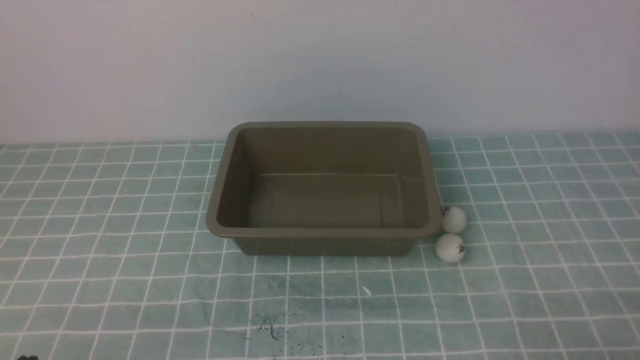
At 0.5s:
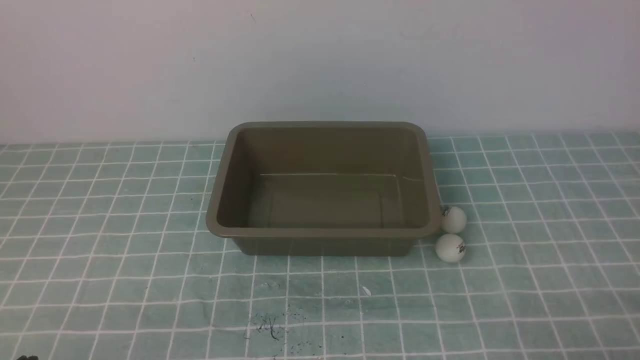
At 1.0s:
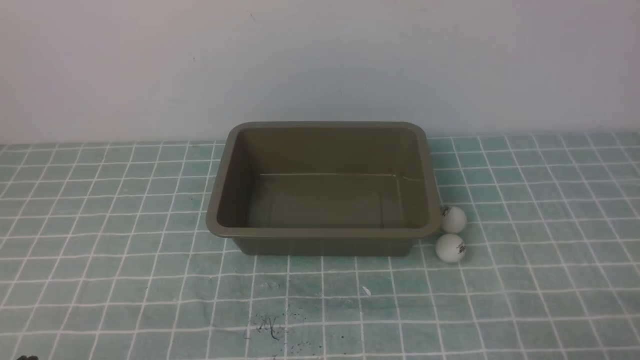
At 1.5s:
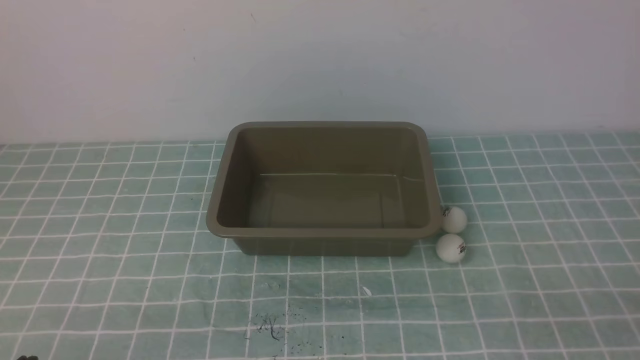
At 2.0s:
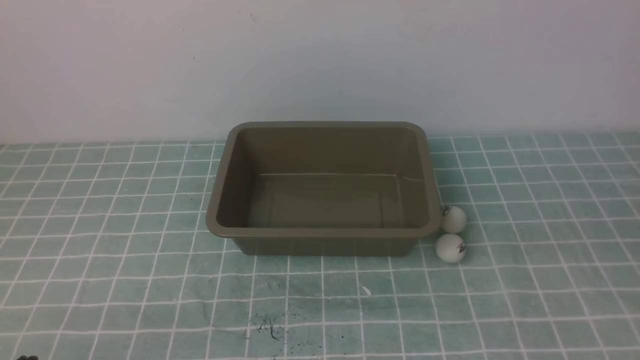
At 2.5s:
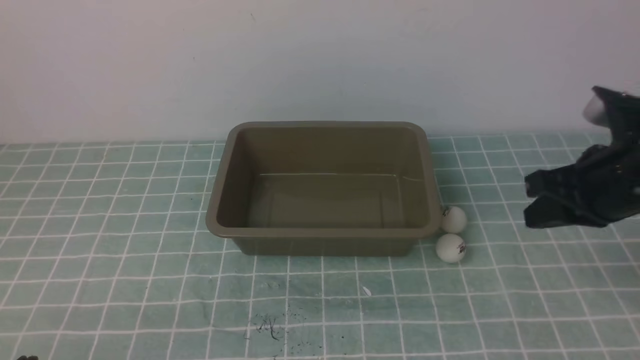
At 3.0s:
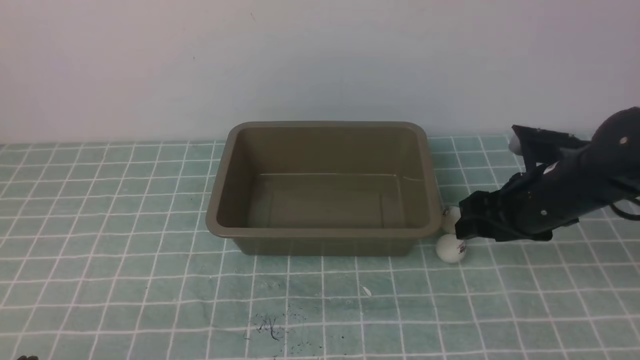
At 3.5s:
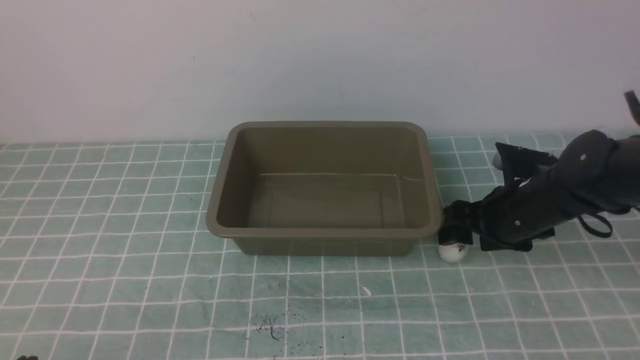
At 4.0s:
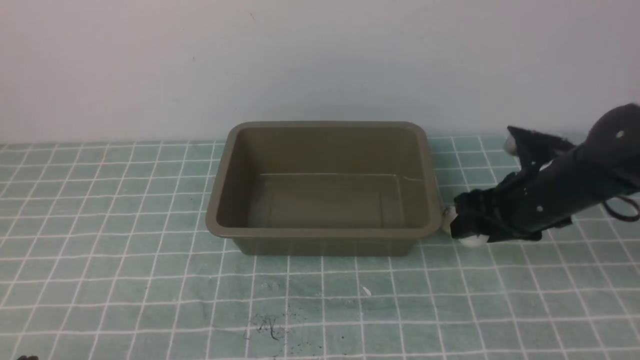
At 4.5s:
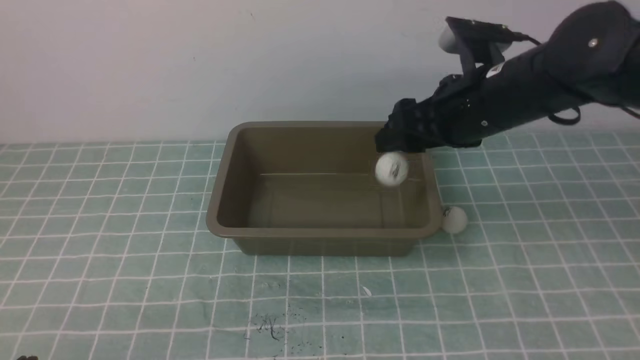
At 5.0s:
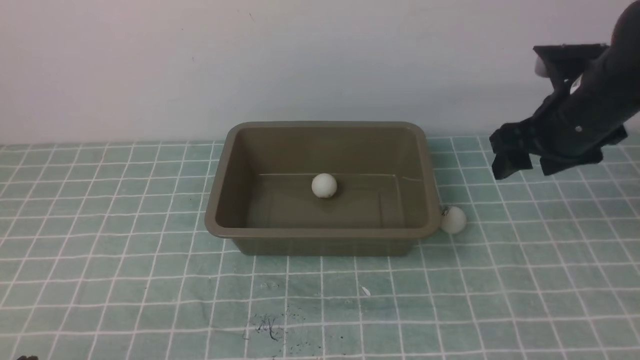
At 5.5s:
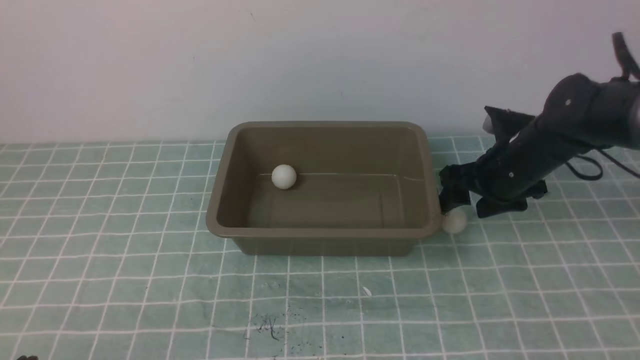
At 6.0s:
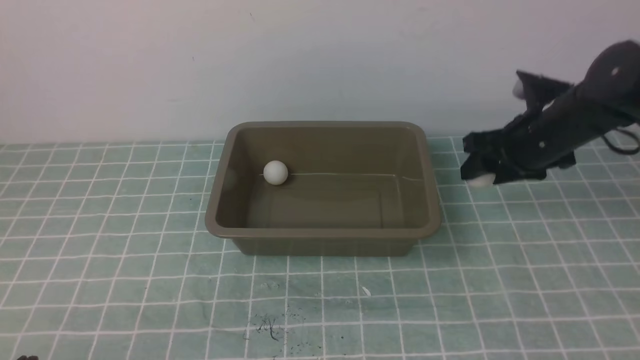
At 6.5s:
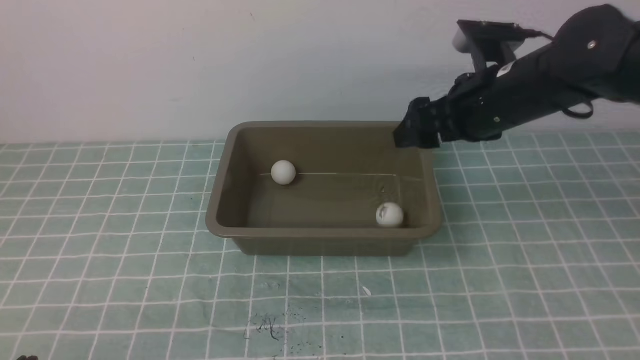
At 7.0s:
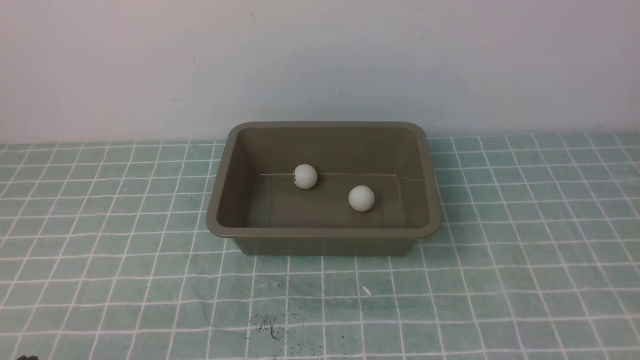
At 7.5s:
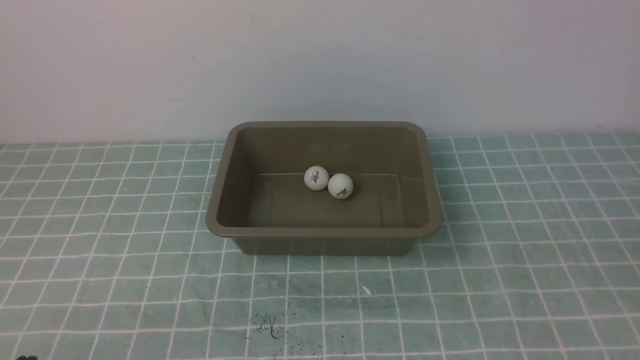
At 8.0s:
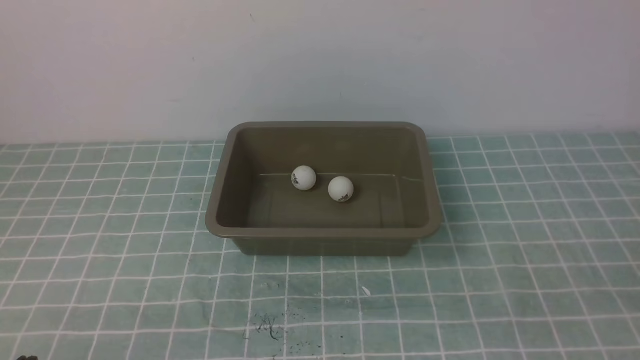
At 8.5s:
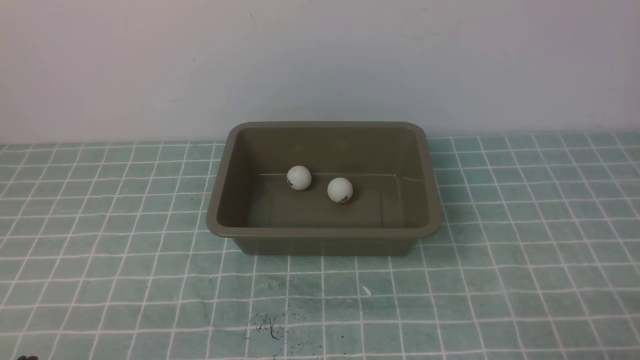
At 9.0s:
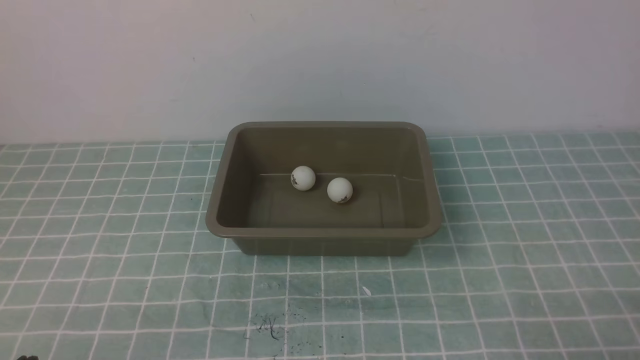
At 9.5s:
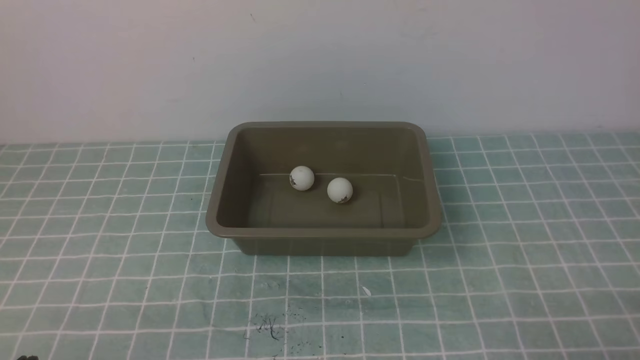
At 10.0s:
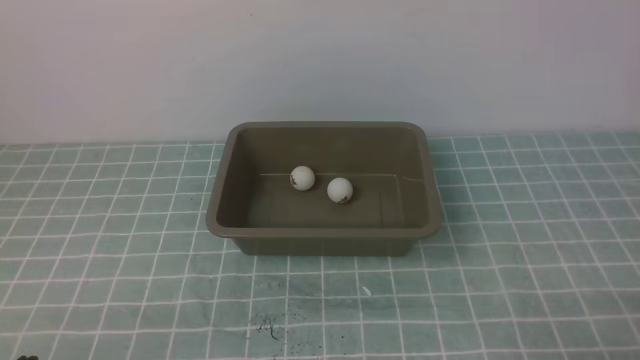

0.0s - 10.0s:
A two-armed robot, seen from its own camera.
Step, 0.0s - 4.0s: use the right arm to clamp the table tennis ball closest to it.
Step, 5.0s - 5.5s: use the right arm to clamp the table tennis ball closest to it.
Step, 6.0s - 6.5s: use the right arm to put the table tennis ball into the box.
2.0s - 4.0s: The right gripper is displaced forward and downward by approximately 20 cm, and opens its fingers.
4.0s - 6.0s: The right gripper goes up and down, roughly 10 cm each way, reversing 2 times.
6.0s - 8.0s: The right gripper heads backward, covering about 35 cm, and closes up.

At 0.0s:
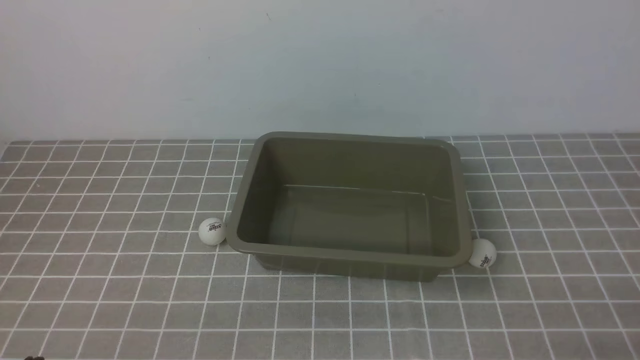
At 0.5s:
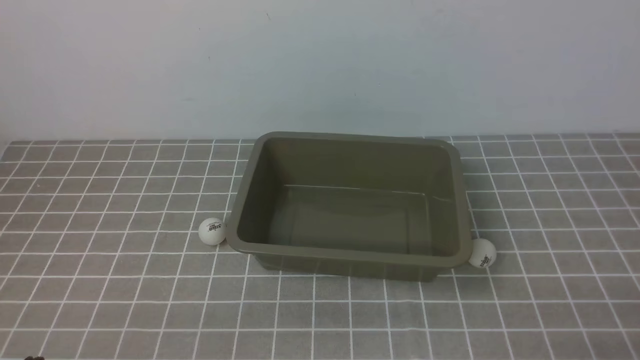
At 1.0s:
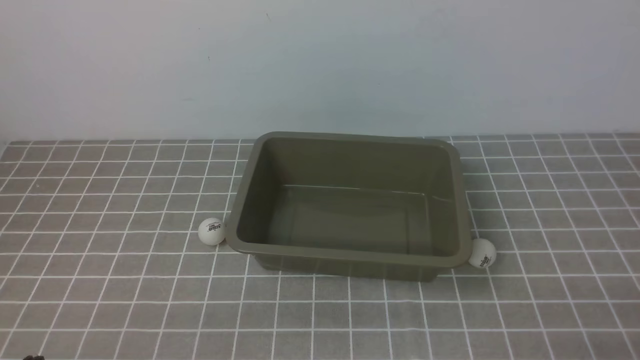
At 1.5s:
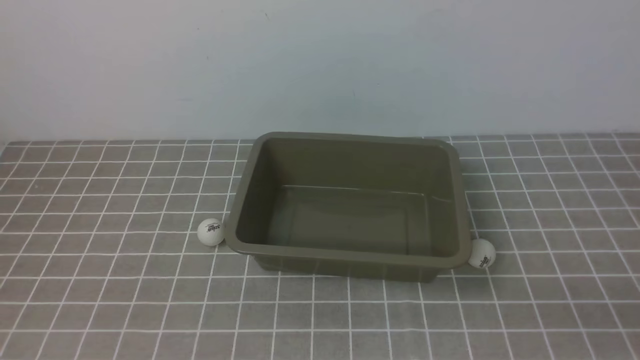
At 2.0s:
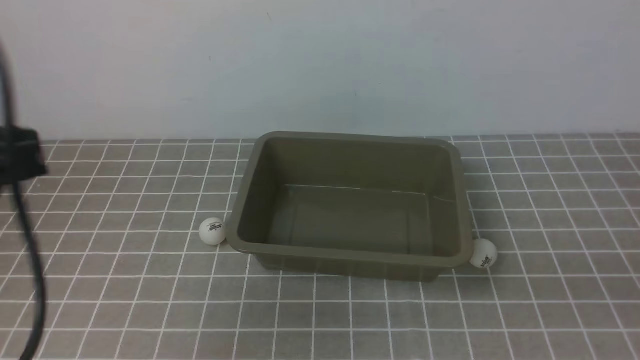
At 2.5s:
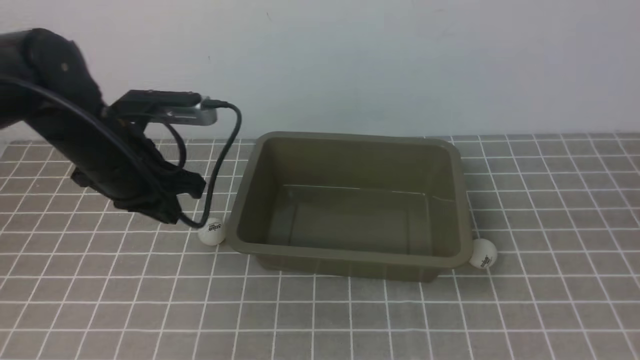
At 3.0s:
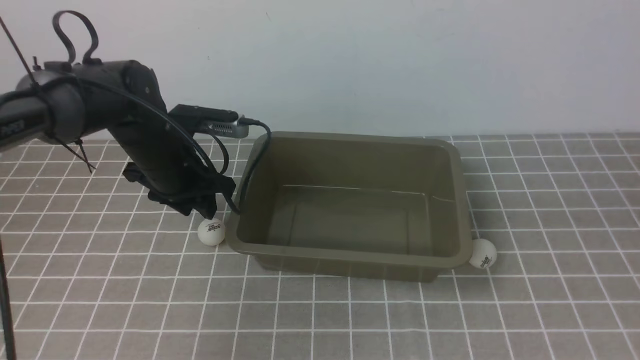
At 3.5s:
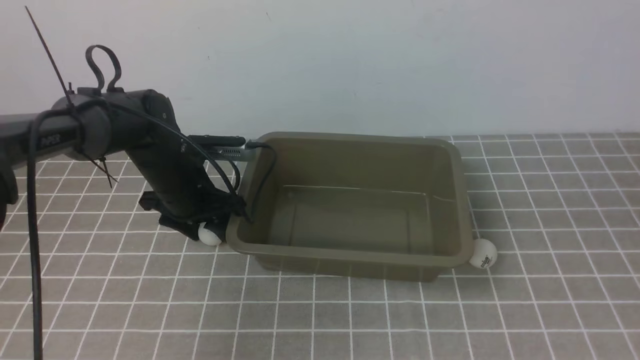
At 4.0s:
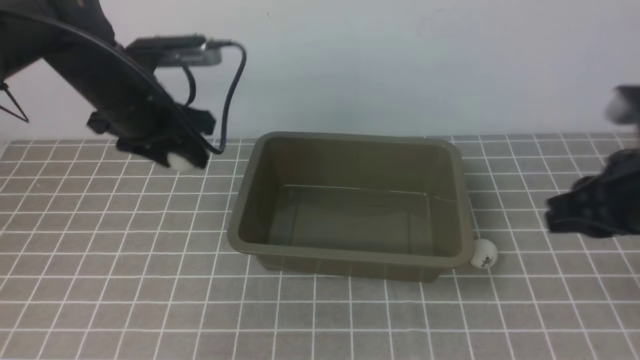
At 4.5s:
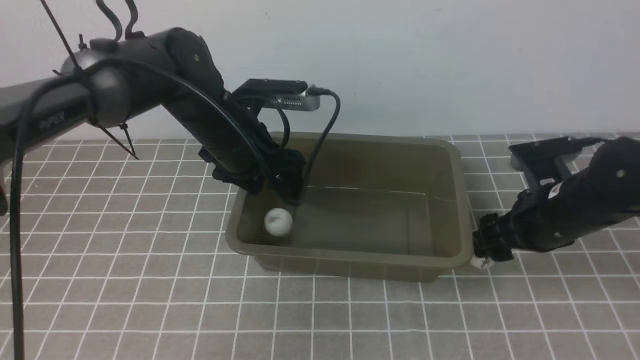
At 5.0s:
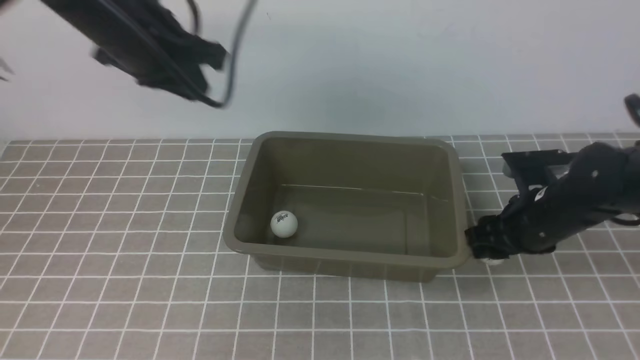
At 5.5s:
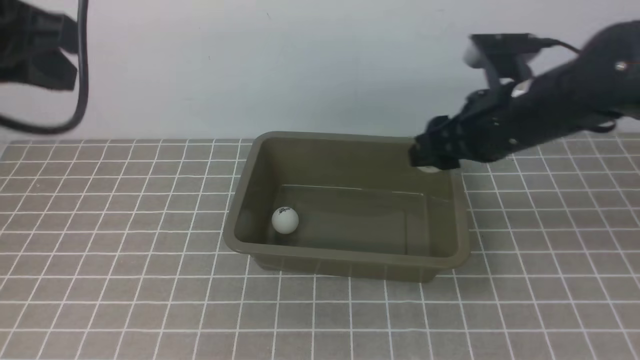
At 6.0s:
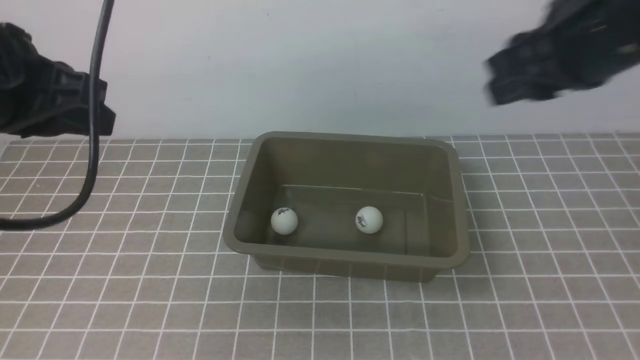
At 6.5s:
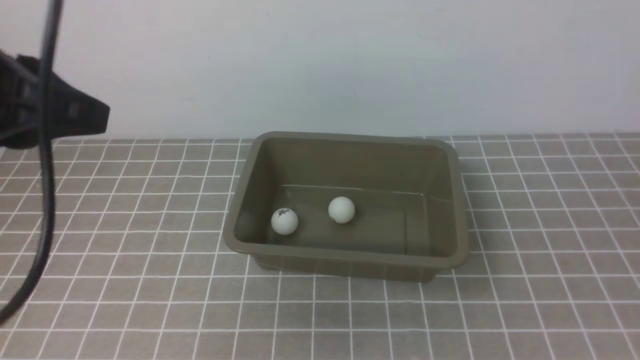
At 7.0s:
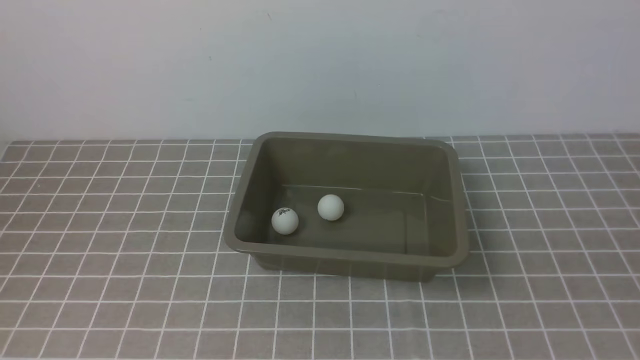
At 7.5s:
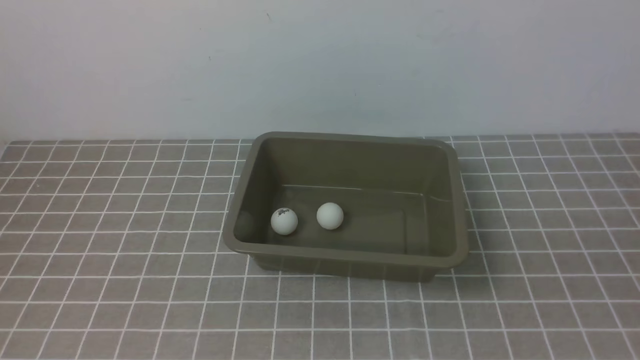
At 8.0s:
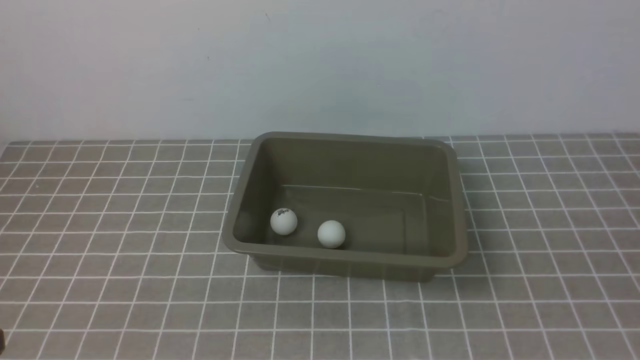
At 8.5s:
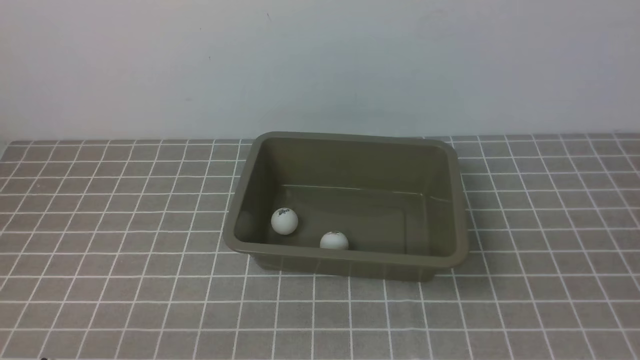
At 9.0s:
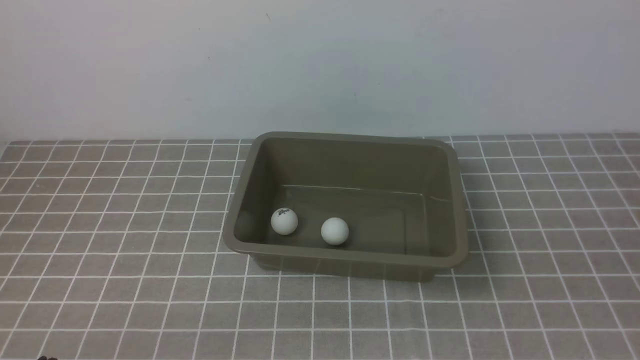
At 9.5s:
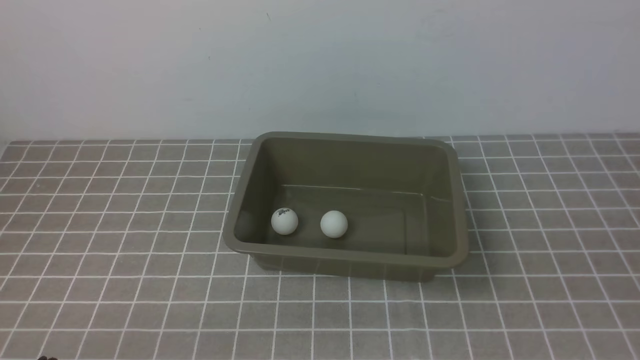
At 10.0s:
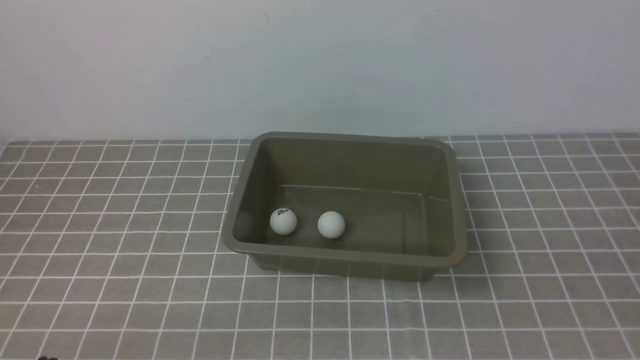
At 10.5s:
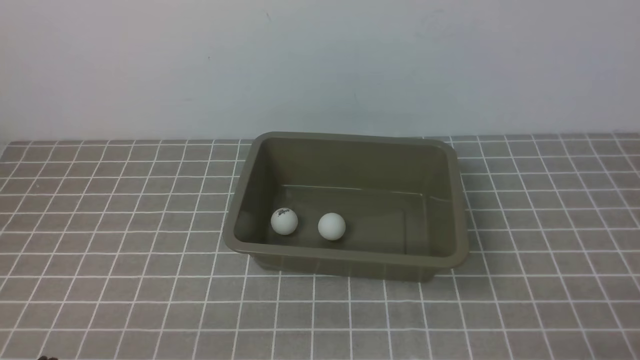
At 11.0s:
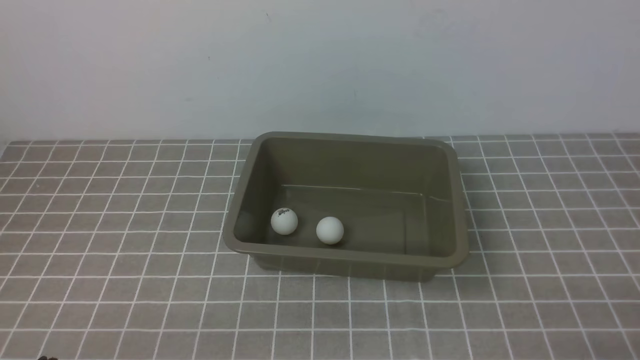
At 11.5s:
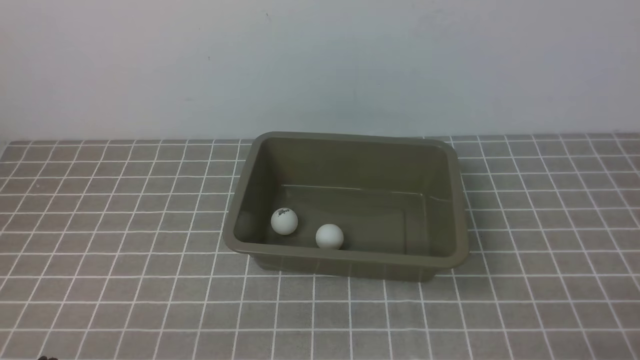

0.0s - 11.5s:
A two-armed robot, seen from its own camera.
Step, 0.0s - 3.5s: use the left arm to clamp the table tennis ball closest to it.
Step, 4.0s - 4.5s: use the left arm to put the table tennis ball into the box.
0.0s - 2.0s: The left gripper is displaced upward and forward by some 25 cm.
2.0s - 4.0s: The right gripper shifts about 20 cm forward; the left gripper goes about 25 cm forward and downward, and opens its fingers.
4.0s - 6.0s: The left gripper travels backward and upward by some 20 cm, and closes up, while the right gripper heads upward, covering roughly 15 cm, and opens, then closes again.
6.0s - 7.5s: The left gripper moves backward, some 25 cm. The right gripper is displaced backward, downward and to the right by some 25 cm, and closes.
